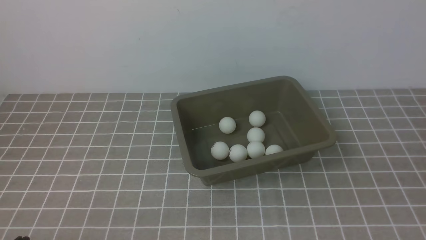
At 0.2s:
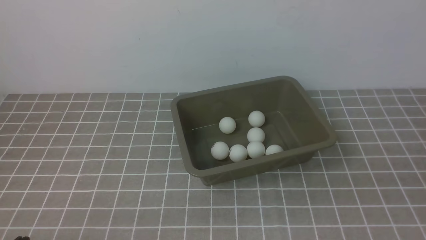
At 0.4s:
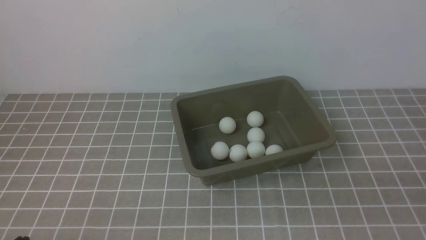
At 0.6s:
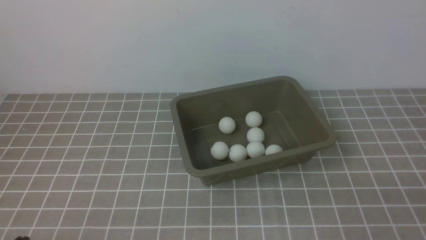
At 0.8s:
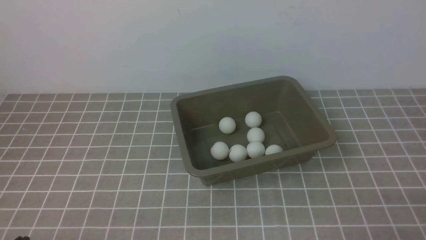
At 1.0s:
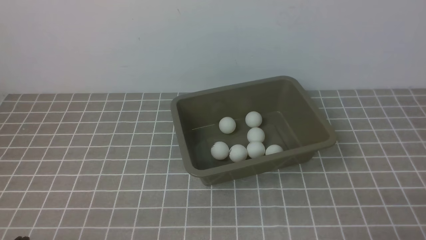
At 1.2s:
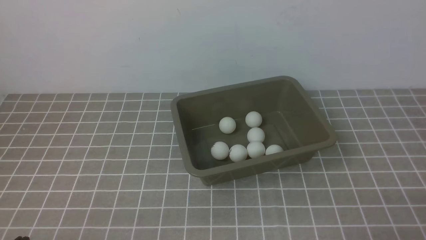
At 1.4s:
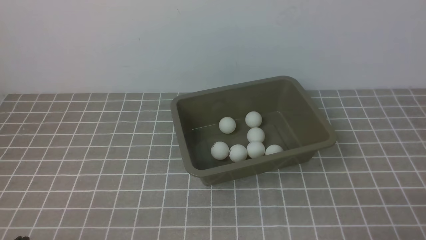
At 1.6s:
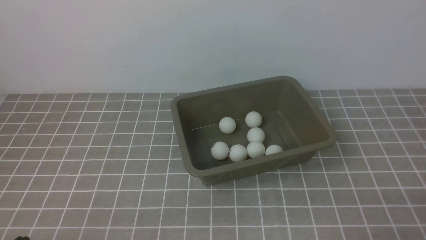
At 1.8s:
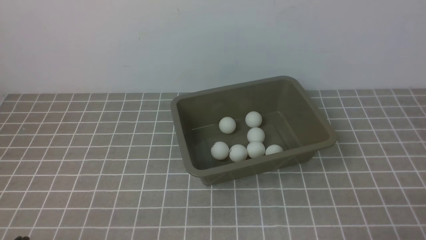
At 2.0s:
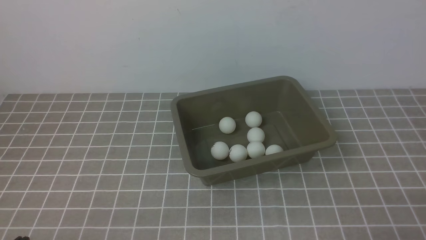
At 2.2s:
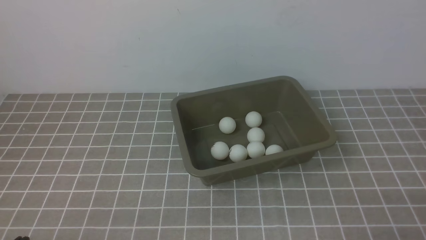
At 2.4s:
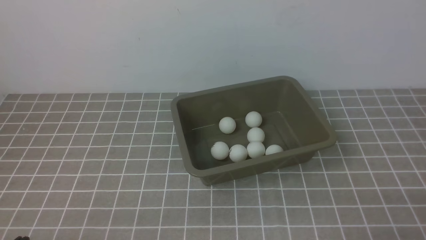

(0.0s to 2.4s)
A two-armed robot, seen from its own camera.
1.2s - 2.4s: Both grippers stay about where they are.
